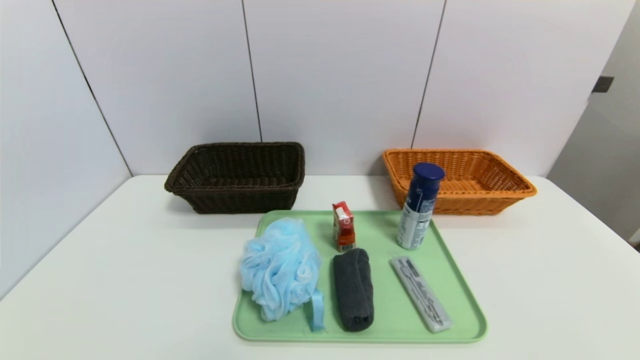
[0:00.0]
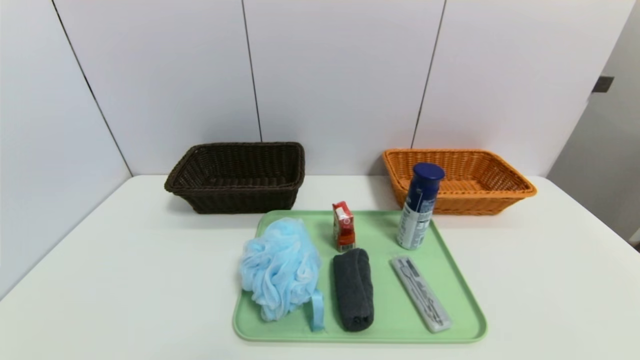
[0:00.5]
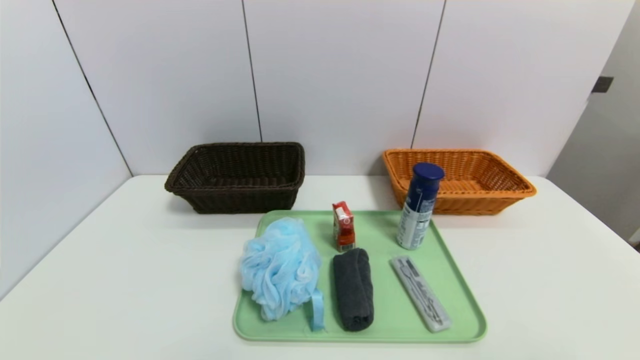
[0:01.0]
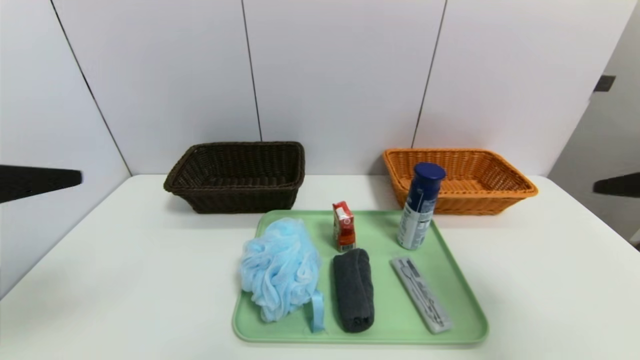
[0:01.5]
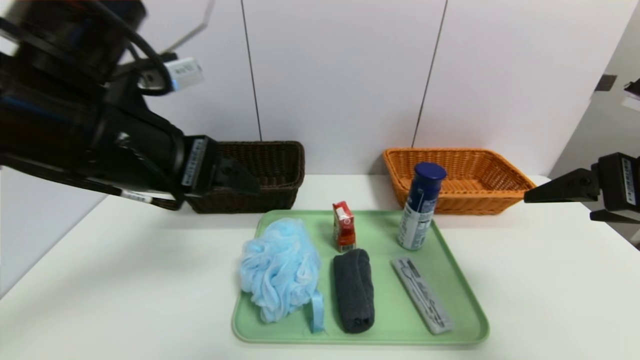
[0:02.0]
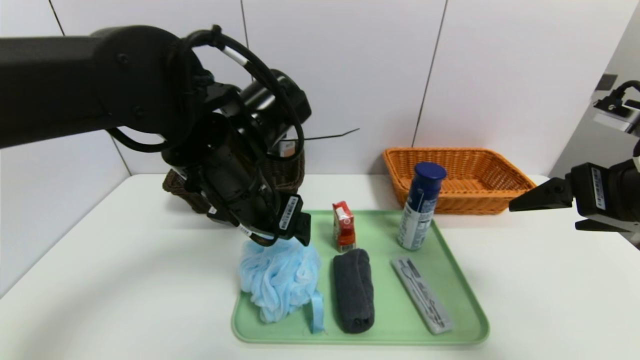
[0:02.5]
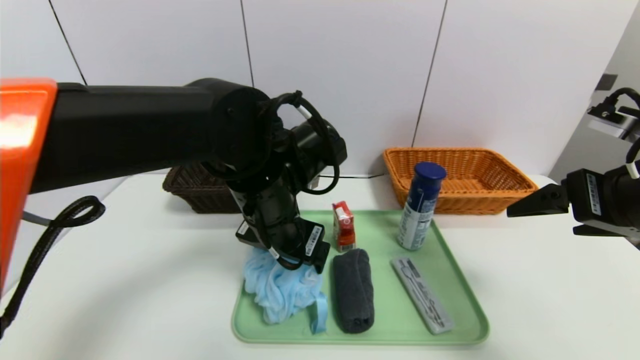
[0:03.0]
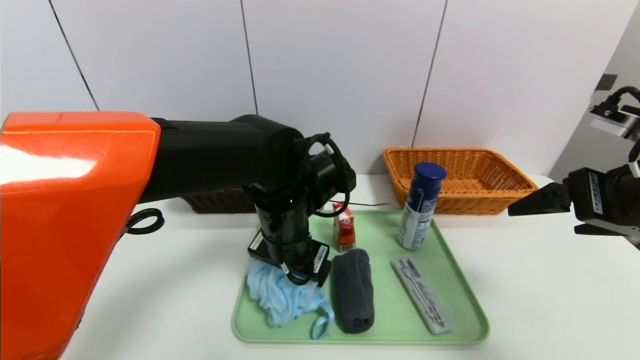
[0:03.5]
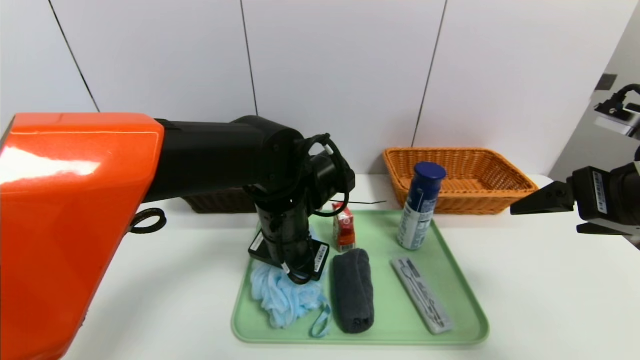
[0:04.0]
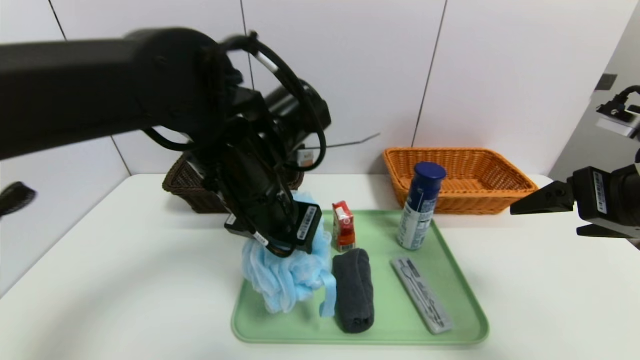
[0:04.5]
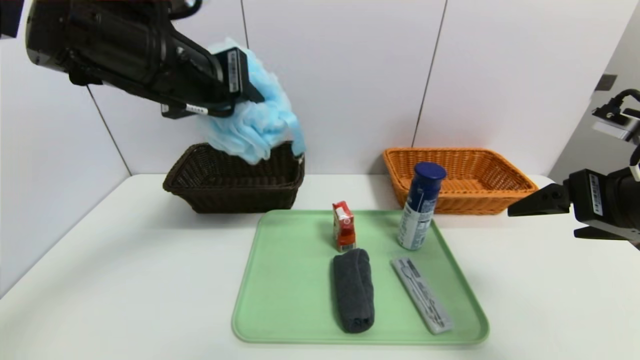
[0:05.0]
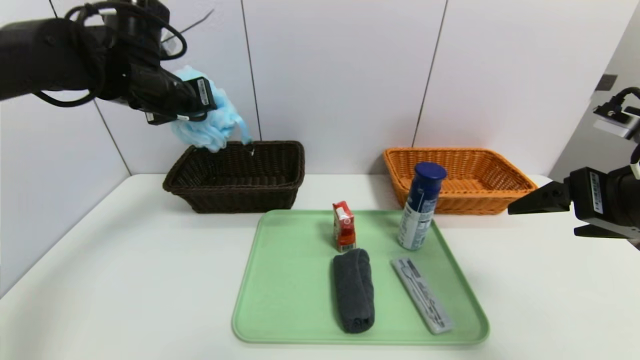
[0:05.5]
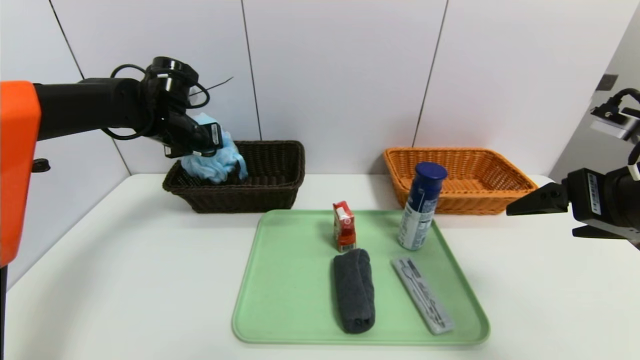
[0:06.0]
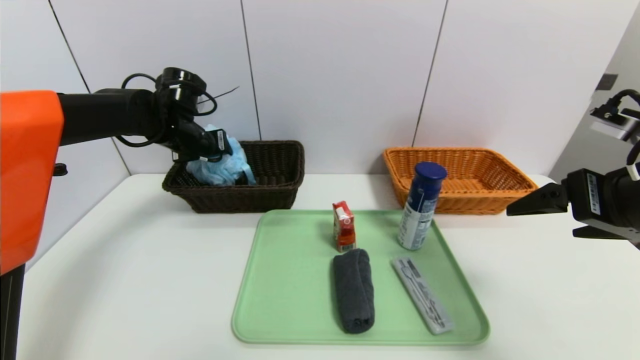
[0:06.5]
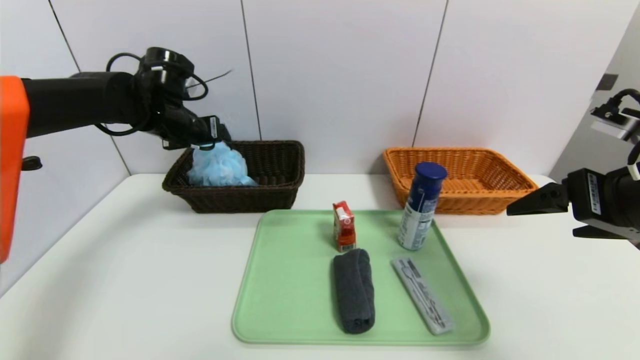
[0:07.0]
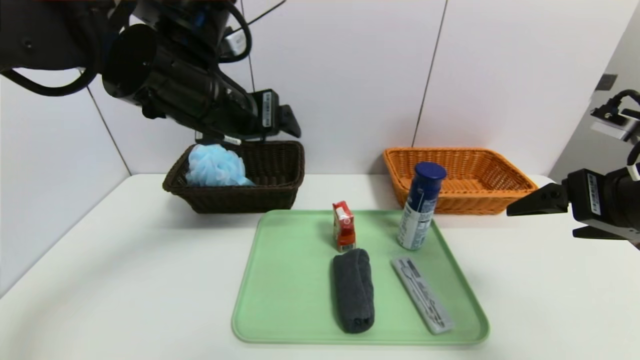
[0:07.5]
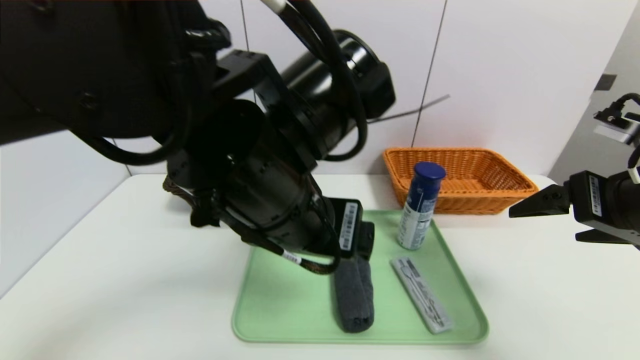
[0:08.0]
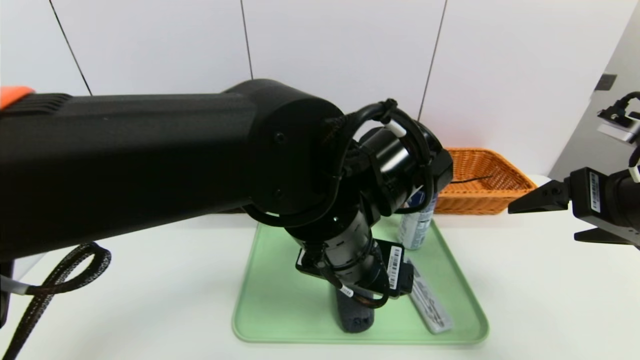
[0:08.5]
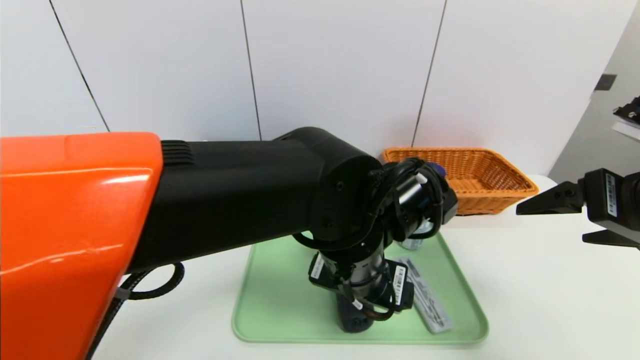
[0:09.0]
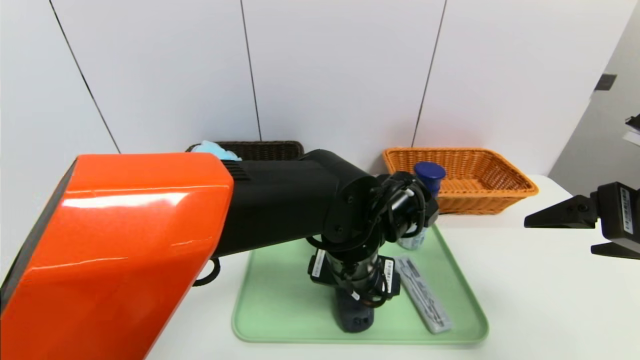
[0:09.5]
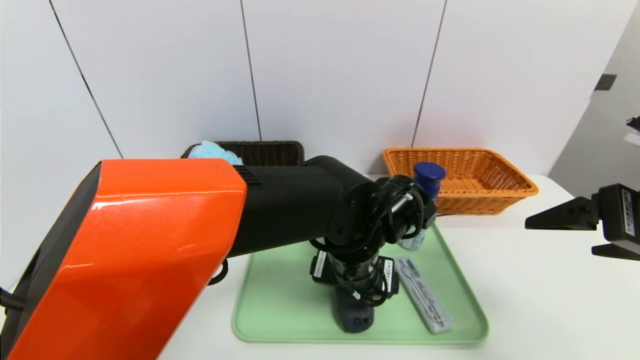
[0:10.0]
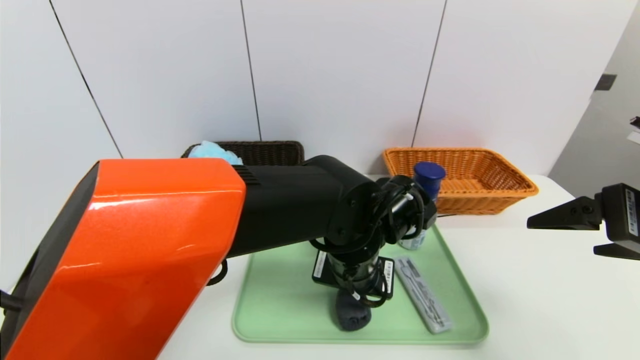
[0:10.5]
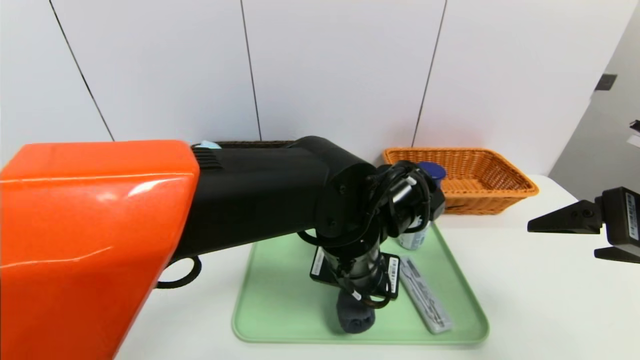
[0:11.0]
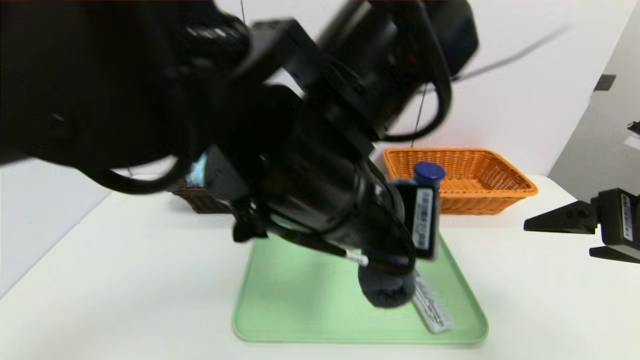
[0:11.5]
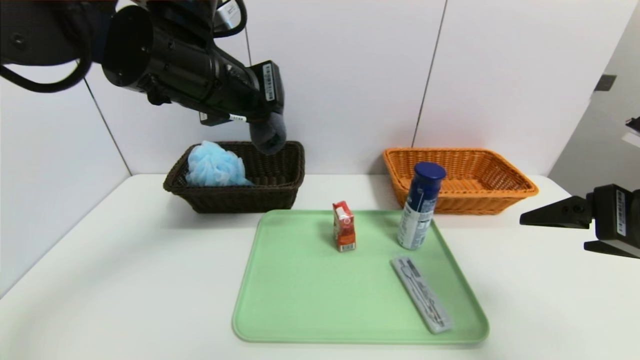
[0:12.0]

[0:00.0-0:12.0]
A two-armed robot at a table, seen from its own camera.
Task of the whole recording: place the food in the right basket with the right gripper, and place the non food items in the left basket with the left gripper.
Step, 0:00.0 to 0:07.0: Grasp the bath ball and put it in the left basket.
0:00.0 to 0:02.0: The right gripper travels upward and forward by approximately 30 cm, while the left gripper shifts some 35 cm upward, forward and to the right.
0:02.0 to 0:04.0: The left gripper shifts about 20 cm downward, to the right and forward, and closes.
0:04.0 to 0:06.0: The left gripper shifts approximately 25 cm to the left and forward.
0:06.0 to 0:08.0: The left gripper moves backward and to the right, approximately 30 cm, and opens its fingers.
0:08.0 to 0:10.0: The left gripper moves downward, to the right and forward, roughly 15 cm.
0:10.0 to 0:12.0: The left gripper moves upward and to the left, about 25 cm, and closes up.

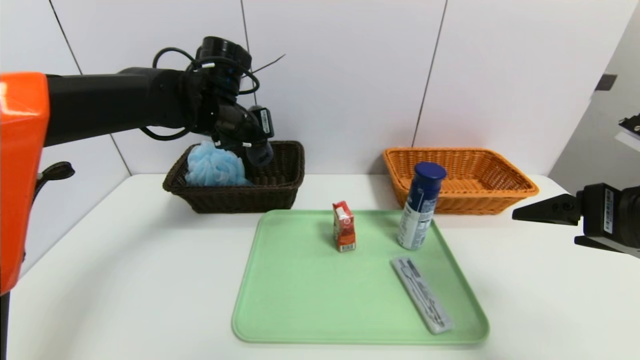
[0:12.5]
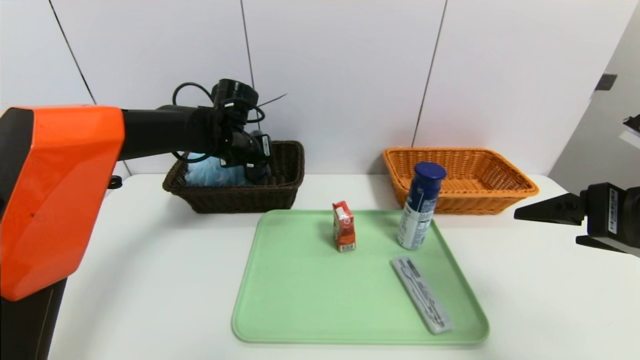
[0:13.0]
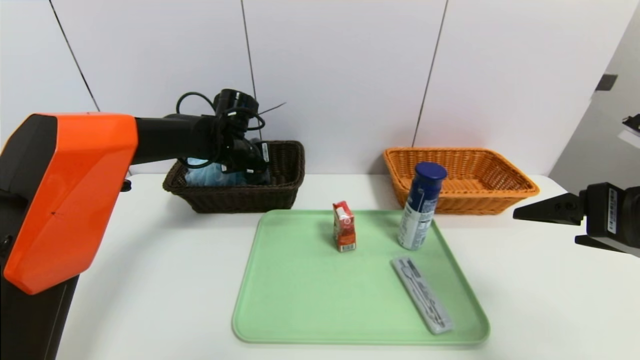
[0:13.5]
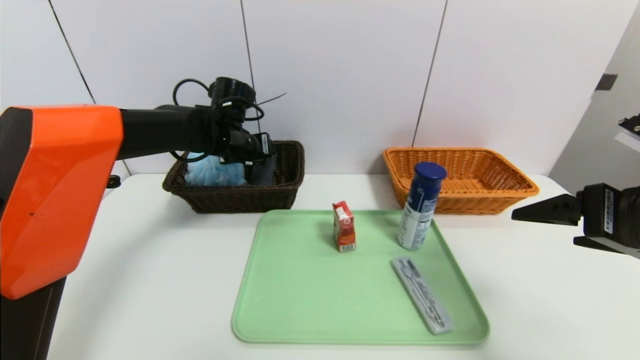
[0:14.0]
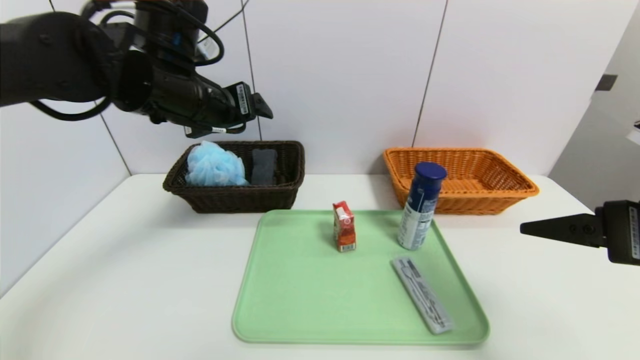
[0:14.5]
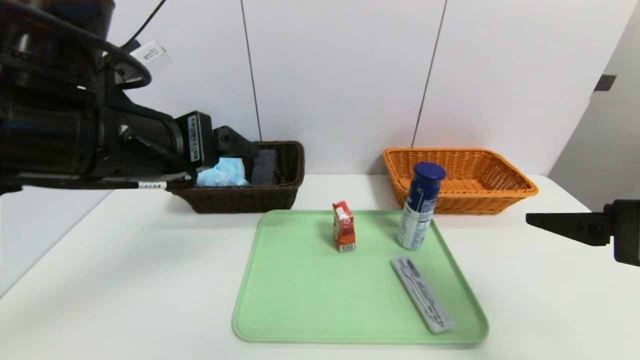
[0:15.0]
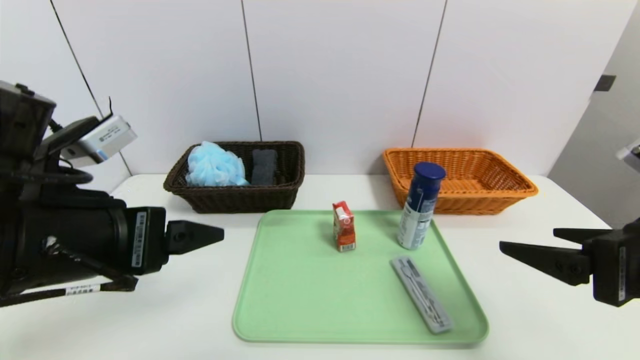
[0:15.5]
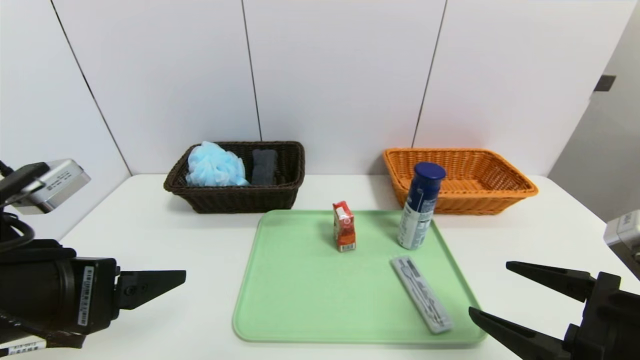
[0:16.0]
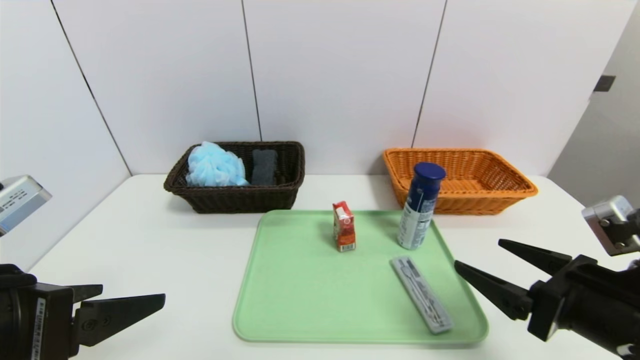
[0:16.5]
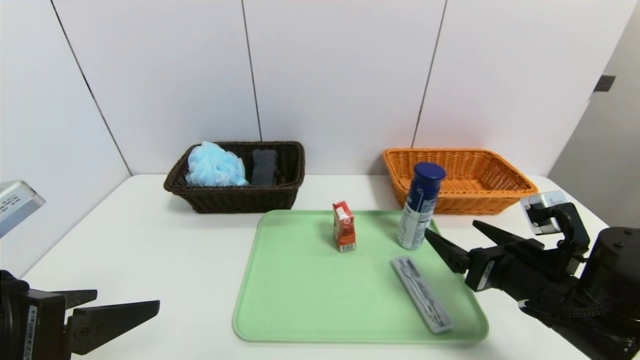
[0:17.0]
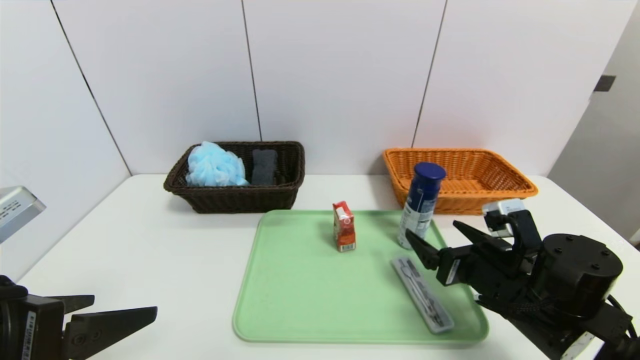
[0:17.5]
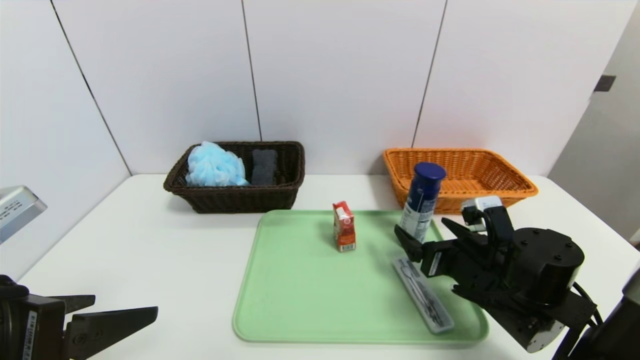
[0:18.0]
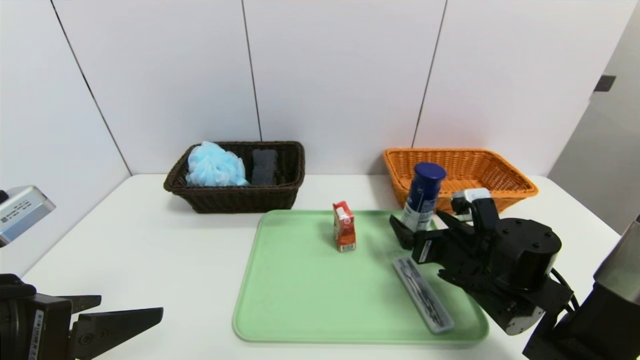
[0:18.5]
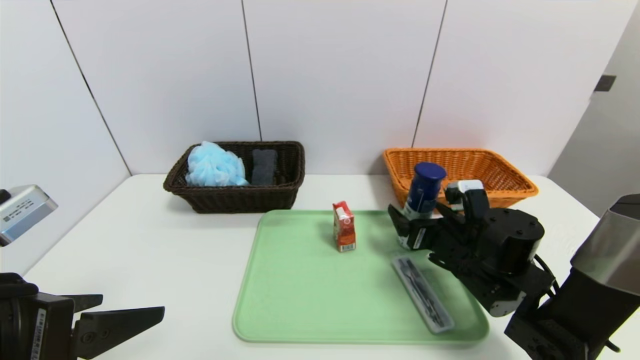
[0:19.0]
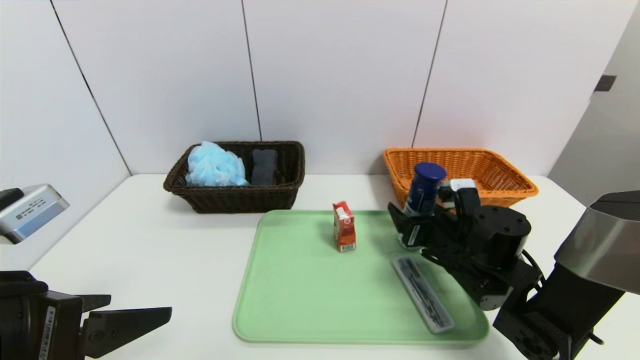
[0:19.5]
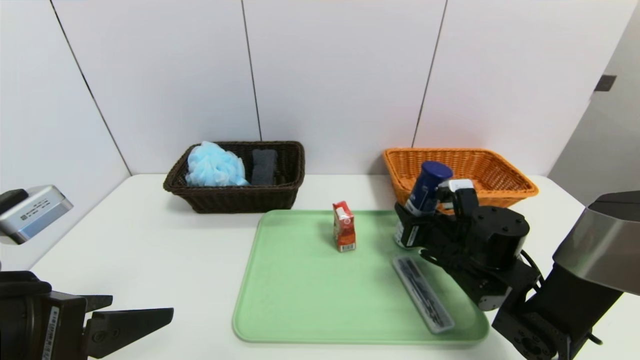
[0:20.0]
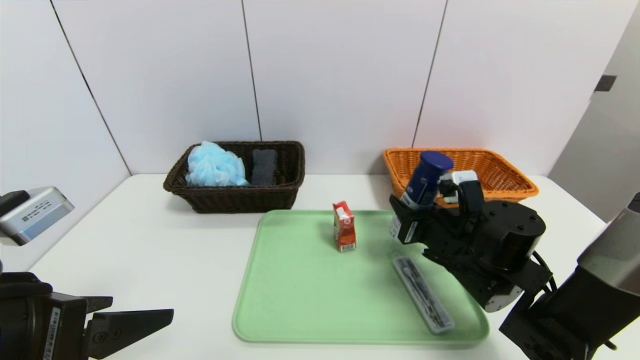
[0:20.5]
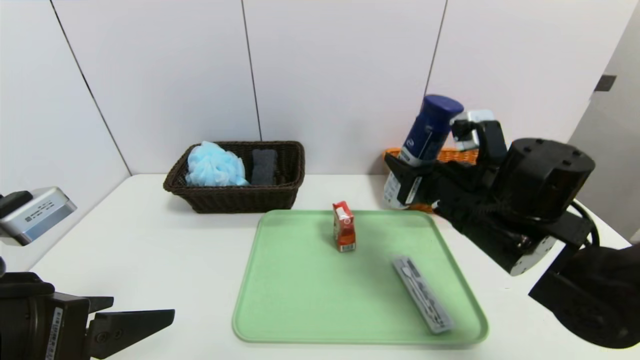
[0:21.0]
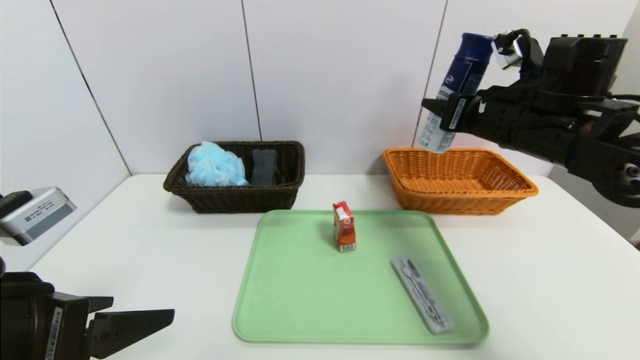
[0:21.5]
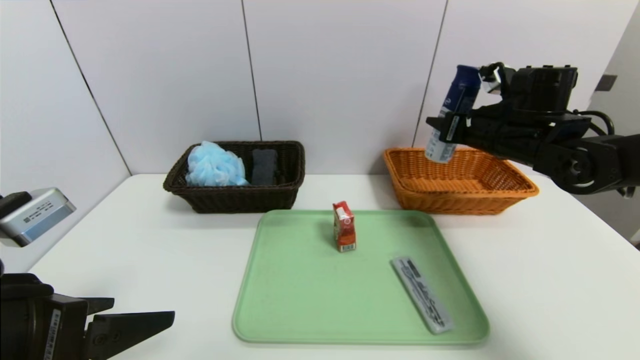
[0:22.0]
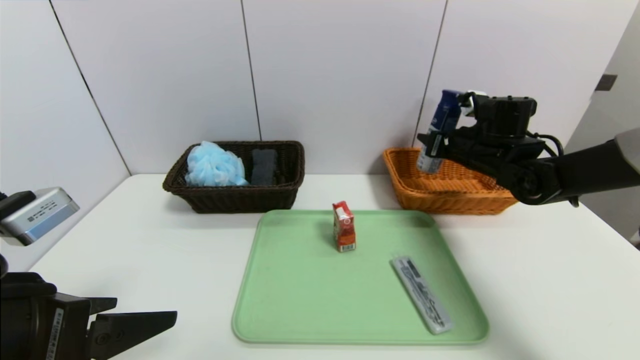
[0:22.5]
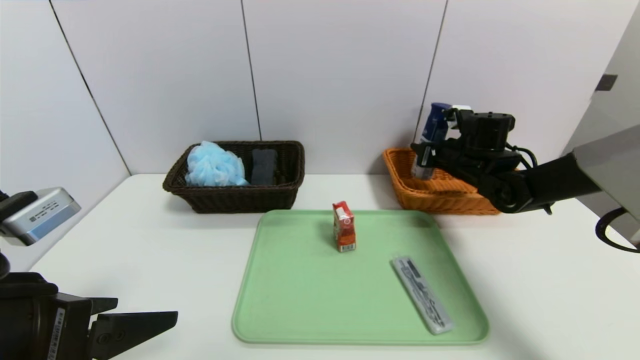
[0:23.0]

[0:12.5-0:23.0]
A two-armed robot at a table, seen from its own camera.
Task of the whole recording: place the food in the right basket with the right gripper, and place the non food items in the left basket with the left gripper.
0:12.5 to 0:14.5: The left gripper is displaced backward and upward by some 10 cm, and opens its fingers.
0:14.5 to 0:16.5: The left gripper is displaced backward by roughly 25 cm. The right gripper is displaced downward by about 10 cm.
0:16.5 to 0:19.0: The right gripper shifts about 15 cm forward, downward and to the left.
0:19.0 to 0:21.0: The right gripper travels upward by some 10 cm, and closes up.
0:21.0 to 0:23.0: The right gripper moves forward and to the right, roughly 20 cm.
